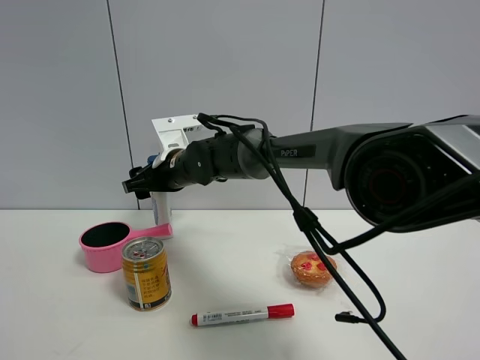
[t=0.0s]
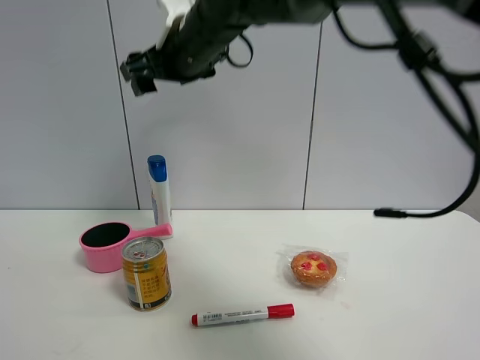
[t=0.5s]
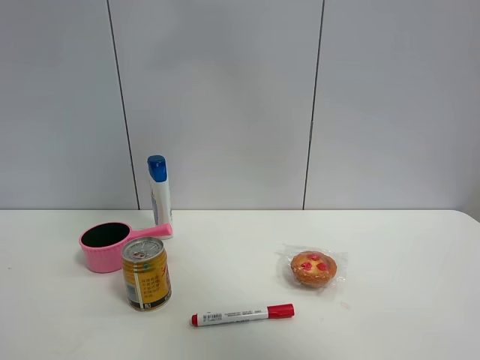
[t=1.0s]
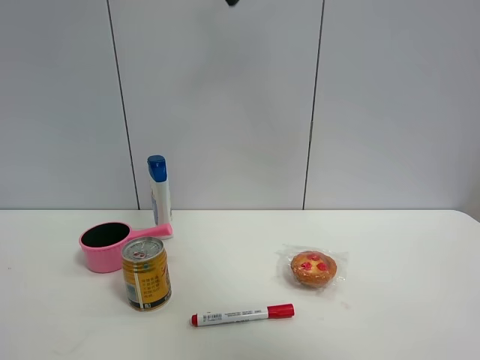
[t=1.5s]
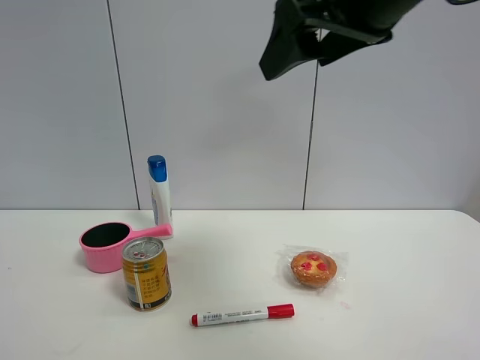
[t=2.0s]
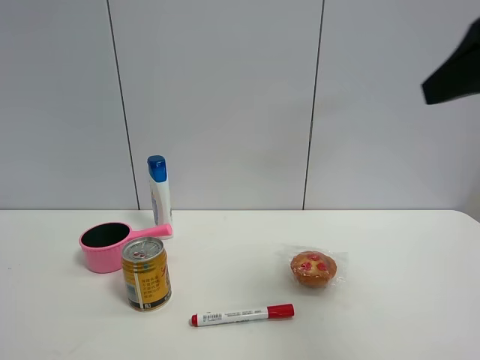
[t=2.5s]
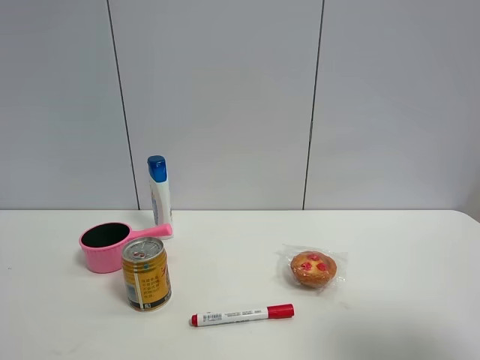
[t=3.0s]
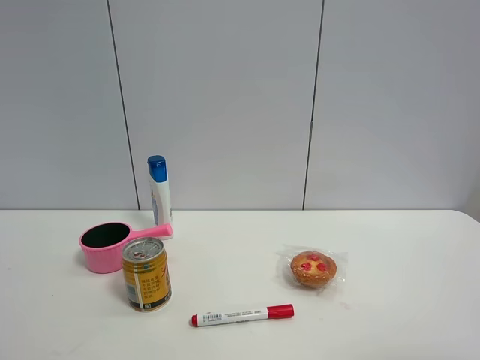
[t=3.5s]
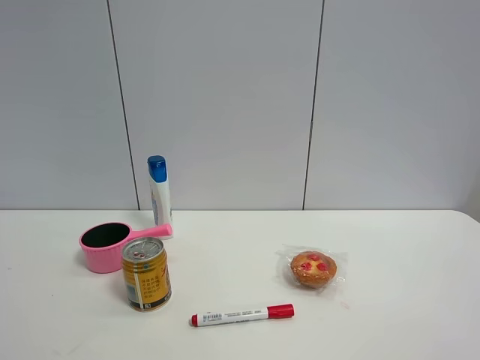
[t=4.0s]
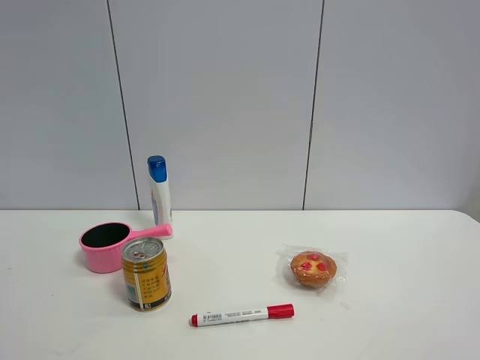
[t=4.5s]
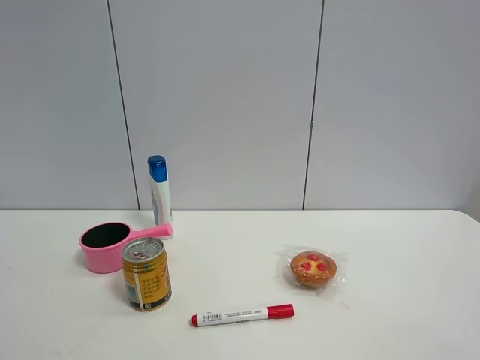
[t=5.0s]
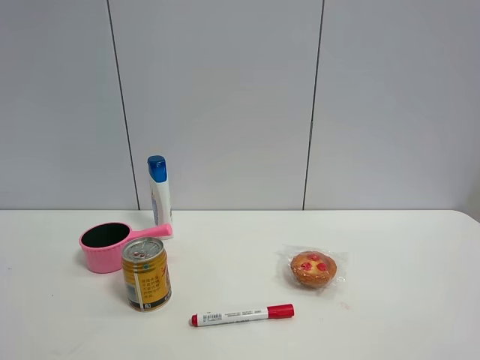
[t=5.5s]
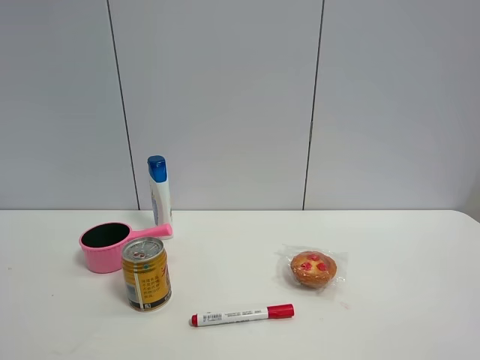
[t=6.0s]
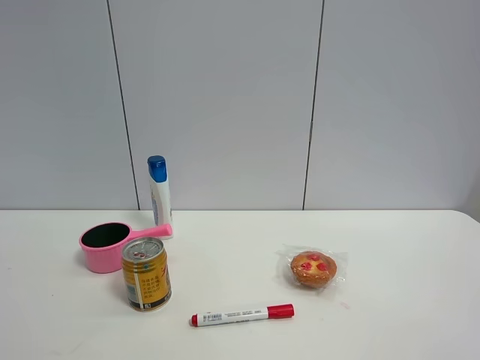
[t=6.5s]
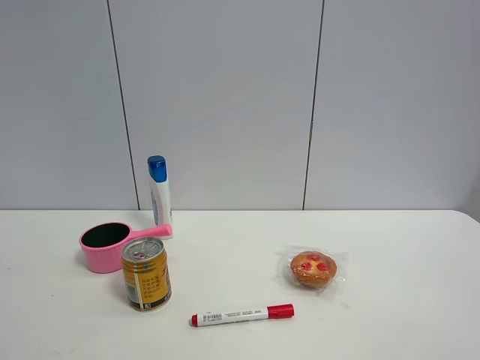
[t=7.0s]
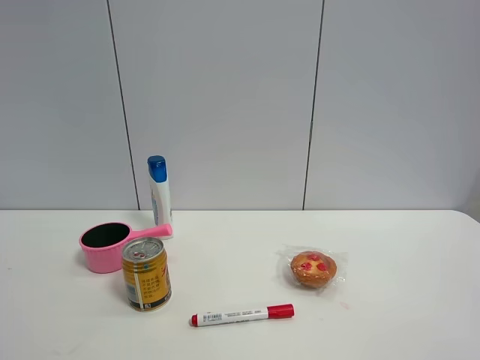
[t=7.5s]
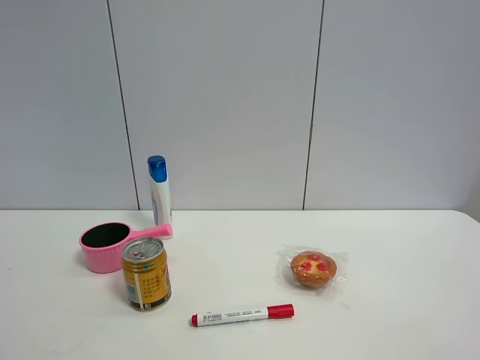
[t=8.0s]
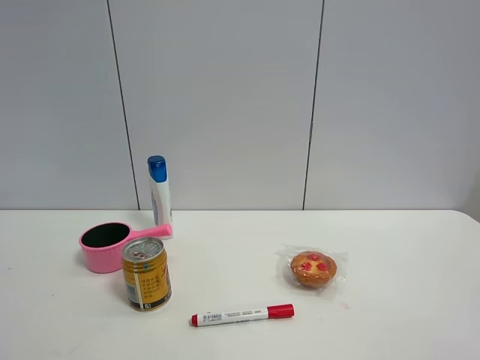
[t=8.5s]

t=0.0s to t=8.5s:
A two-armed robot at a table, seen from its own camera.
Task of the whole recording: the gripper move the object.
t=0.0s to t=2.0s: The right gripper travels upward, backward and to the right by roughly 40 cm.
t=2.0s to t=4.0s: The right gripper travels backward, to the right and downward by roughly 30 cm.
t=6.5s to t=8.5s: Both grippers stay about where they are.

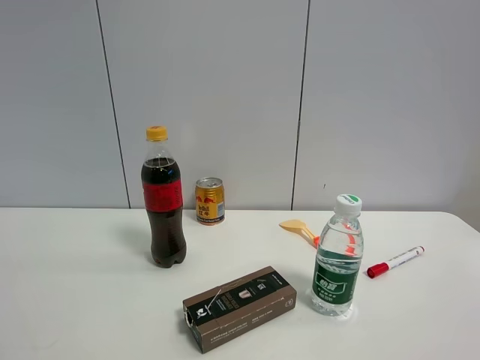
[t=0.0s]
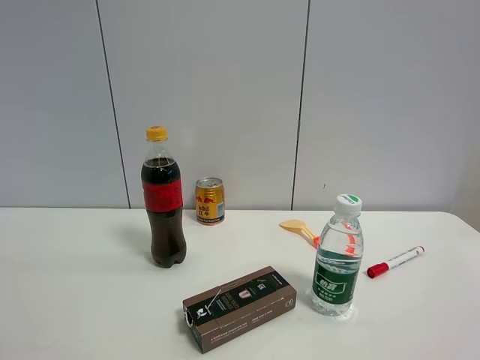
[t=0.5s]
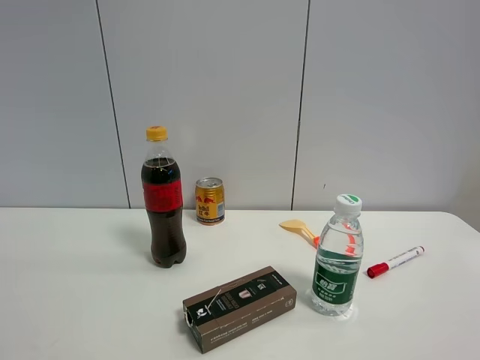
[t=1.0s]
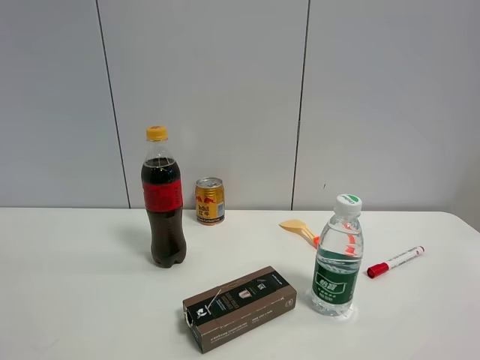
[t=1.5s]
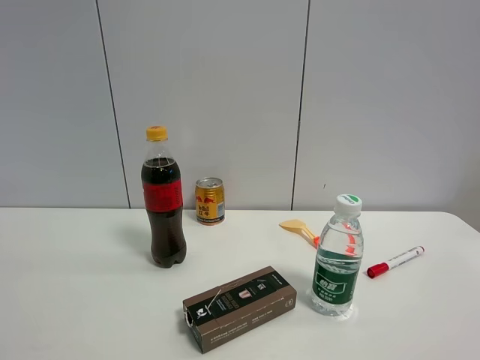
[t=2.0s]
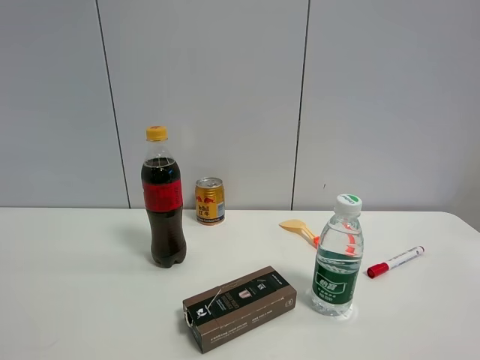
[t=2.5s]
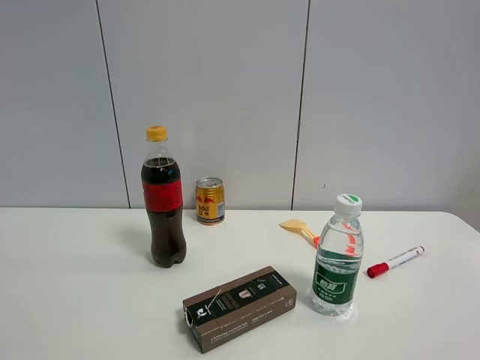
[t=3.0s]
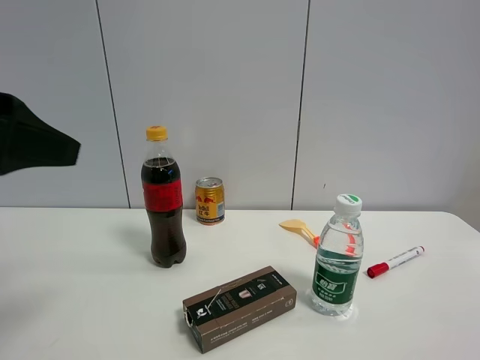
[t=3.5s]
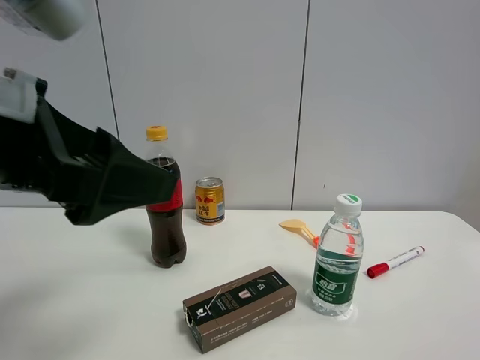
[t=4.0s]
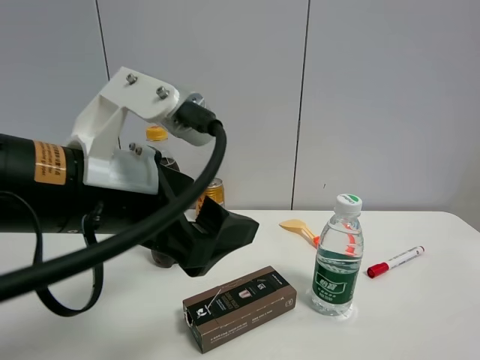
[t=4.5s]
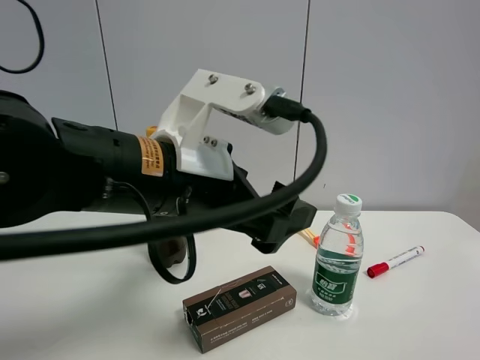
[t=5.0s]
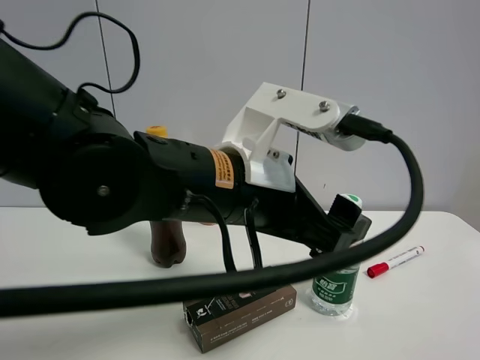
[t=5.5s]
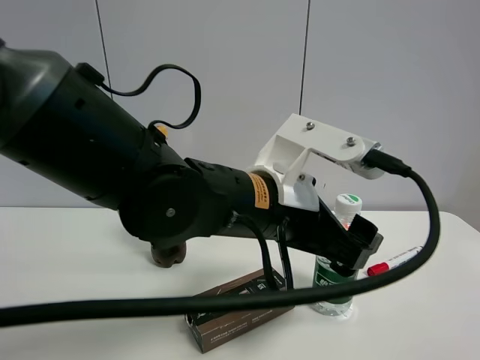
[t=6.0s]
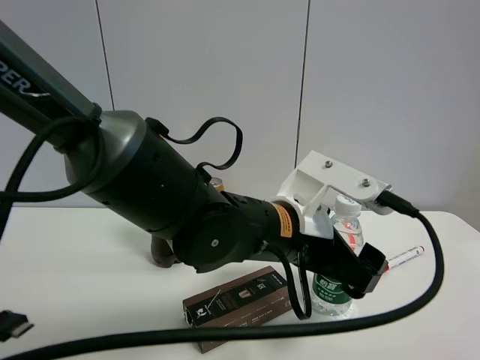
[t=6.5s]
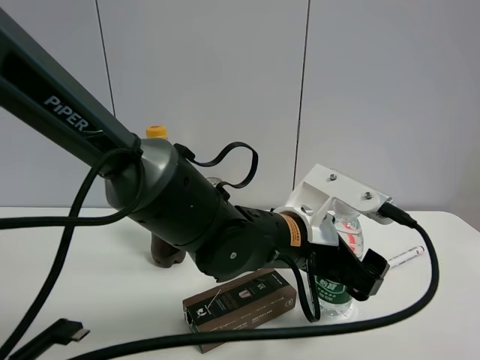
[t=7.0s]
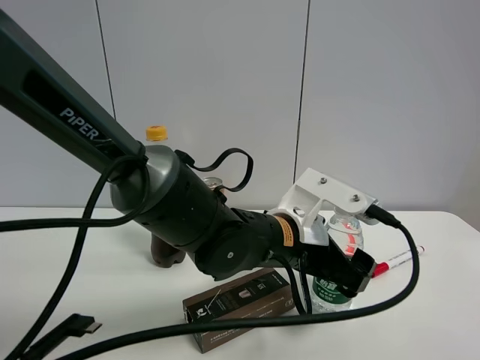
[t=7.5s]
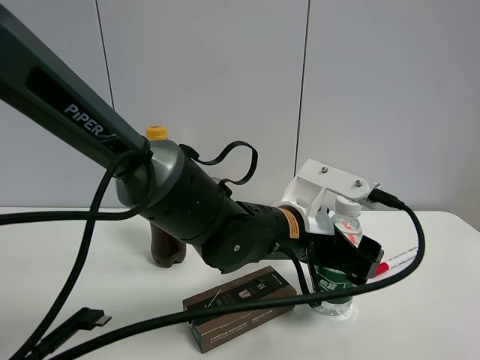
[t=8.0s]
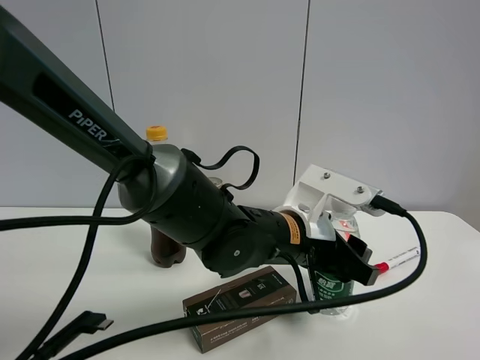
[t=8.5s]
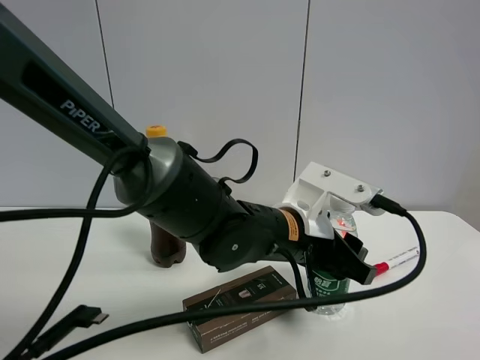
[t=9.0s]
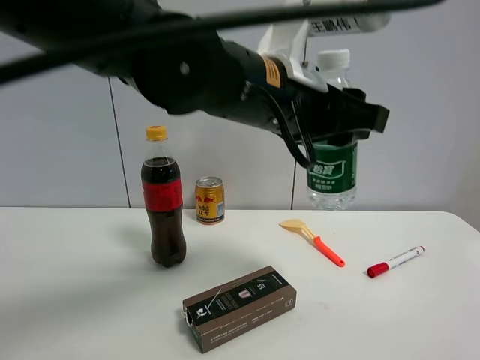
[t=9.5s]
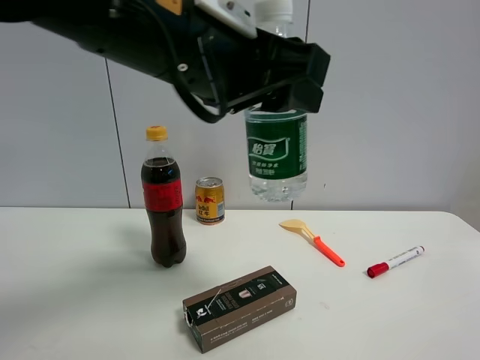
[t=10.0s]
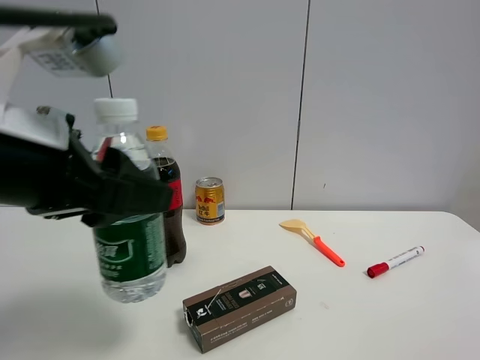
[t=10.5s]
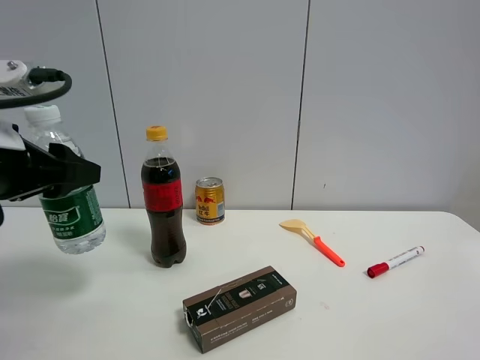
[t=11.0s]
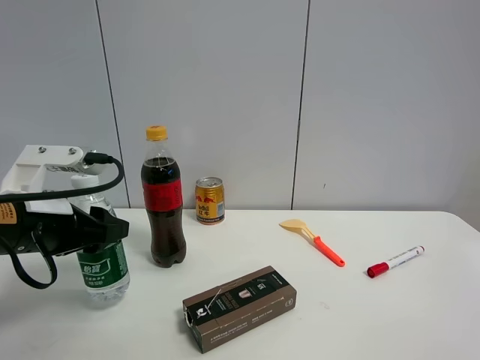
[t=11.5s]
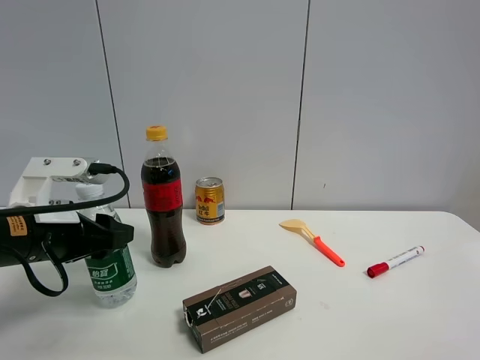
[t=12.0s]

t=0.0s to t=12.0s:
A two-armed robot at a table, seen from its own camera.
Task of the whole recording: the gripper move the object.
Step, t=0.0s to t=8.5s: Grasp the YiBao mineral water with the left gripper.
t=2.0s to t=4.0s: The left gripper travels forward and to the right by about 25 cm.
t=4.0s to t=6.0s: The left gripper shifts some 25 cm to the right, downward and forward.
t=6.0s to t=8.0s: The left gripper is displaced downward by approximately 5 cm.
t=8.0s to t=10.0s: The left gripper goes about 25 cm upward, to the left and backward, and closes its fingers.
t=10.0s to t=12.0s: The left gripper moves downward and to the left, about 25 cm.

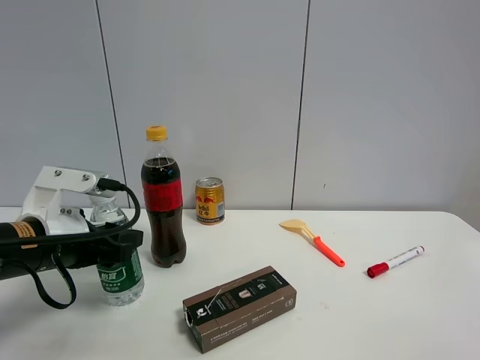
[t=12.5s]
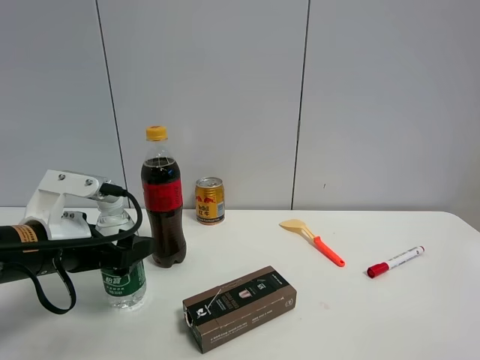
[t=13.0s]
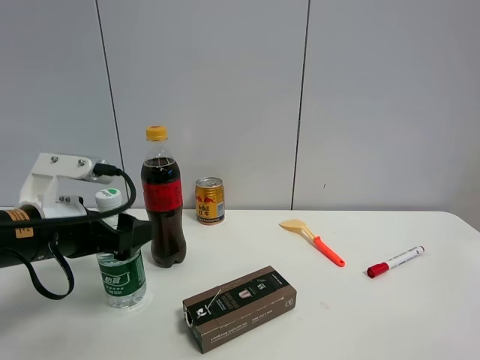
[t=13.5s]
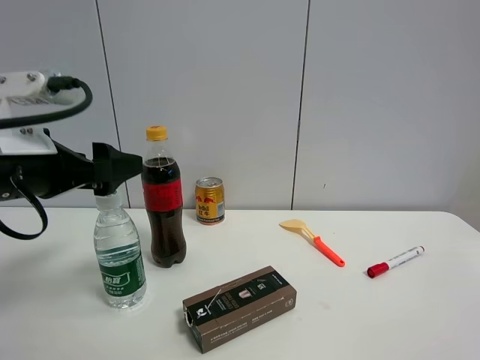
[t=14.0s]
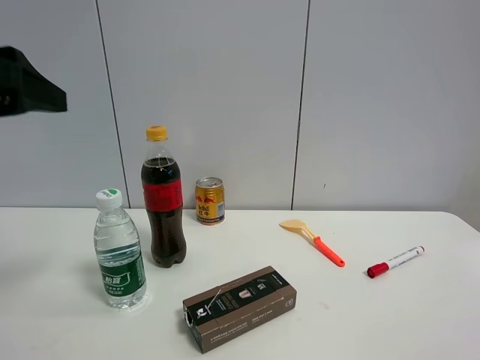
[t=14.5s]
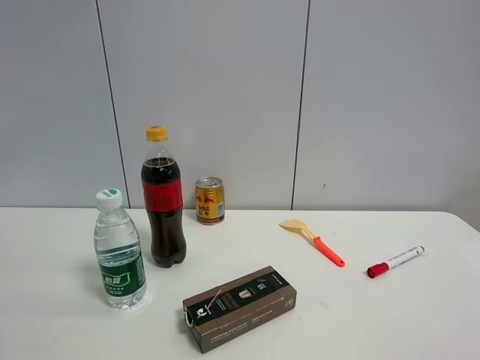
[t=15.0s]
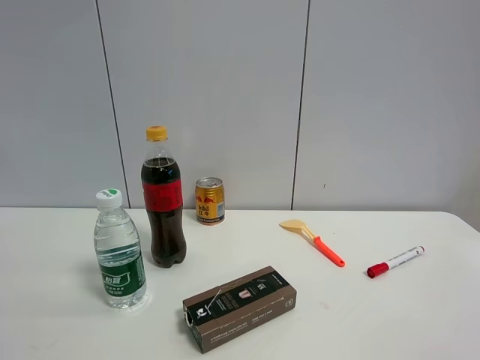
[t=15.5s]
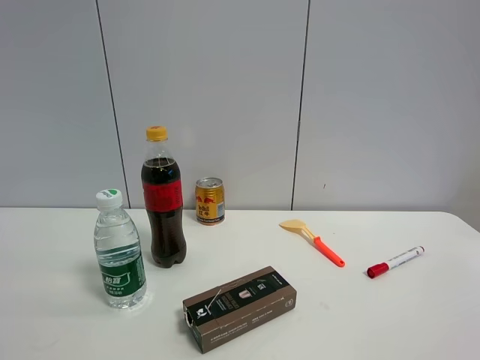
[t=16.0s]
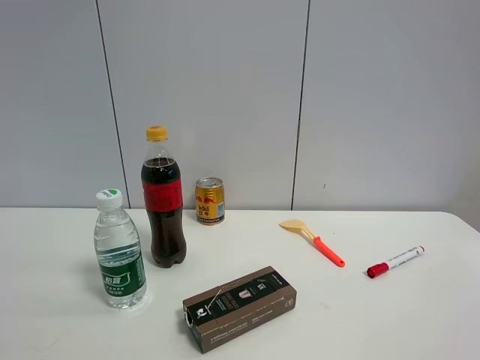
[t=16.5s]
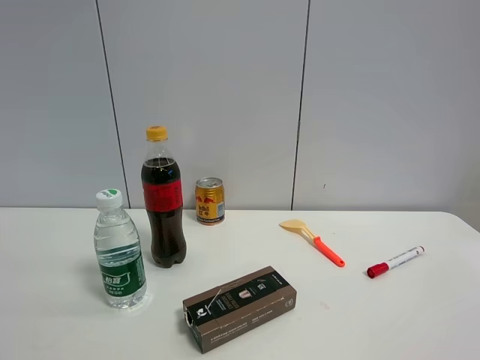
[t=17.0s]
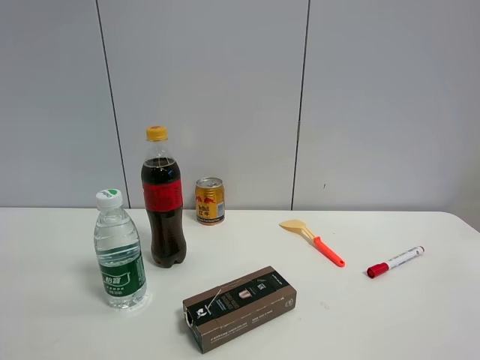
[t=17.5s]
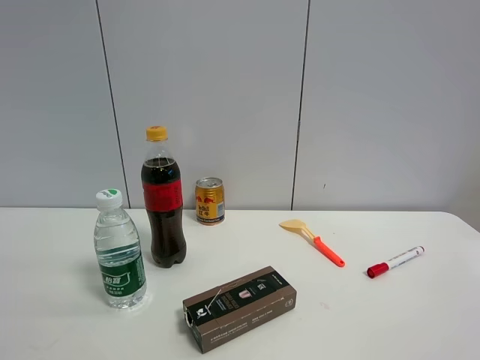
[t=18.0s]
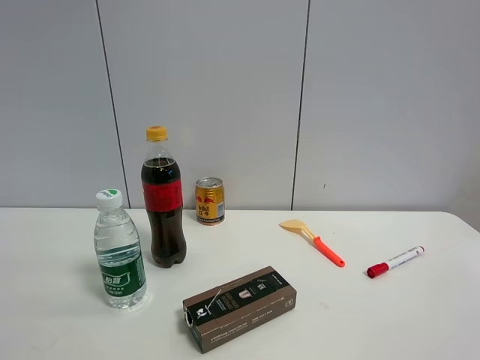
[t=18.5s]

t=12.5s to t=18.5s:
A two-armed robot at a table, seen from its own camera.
Task of the whole recording: the gripper move the object.
t=12.5s to t=14.5s: The left gripper is displaced upward by approximately 20 cm, and opens its fingers.
t=14.5s to t=16.5s: The left gripper shifts about 20 cm backward.
